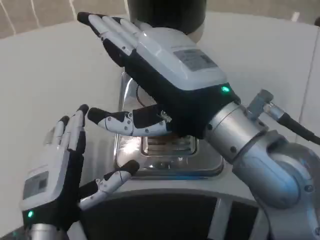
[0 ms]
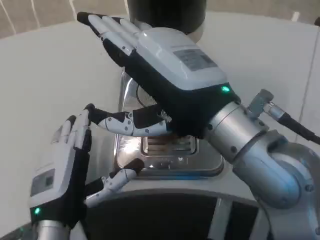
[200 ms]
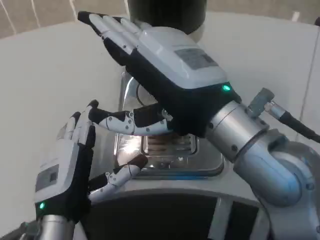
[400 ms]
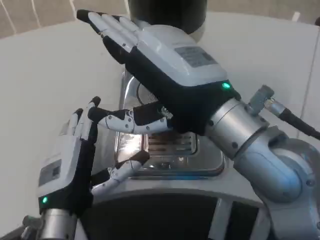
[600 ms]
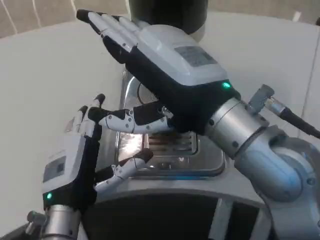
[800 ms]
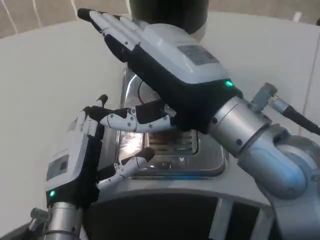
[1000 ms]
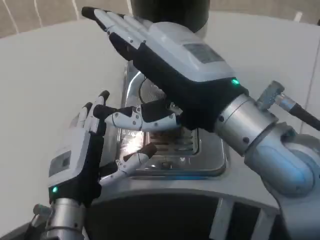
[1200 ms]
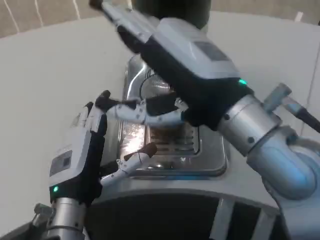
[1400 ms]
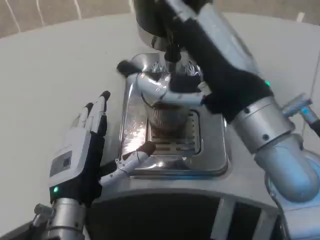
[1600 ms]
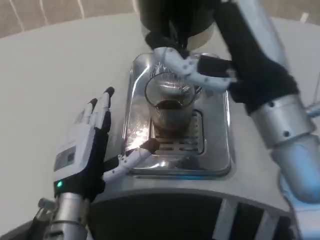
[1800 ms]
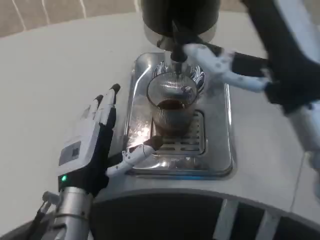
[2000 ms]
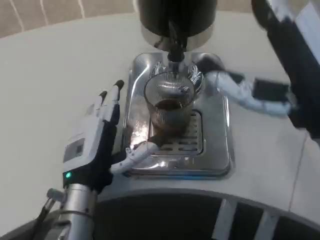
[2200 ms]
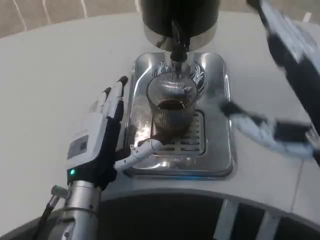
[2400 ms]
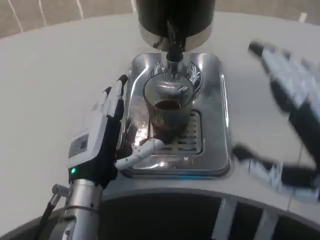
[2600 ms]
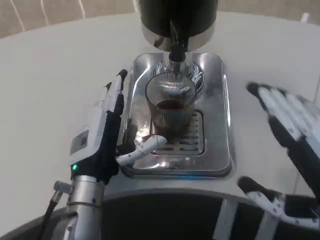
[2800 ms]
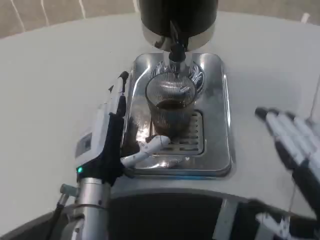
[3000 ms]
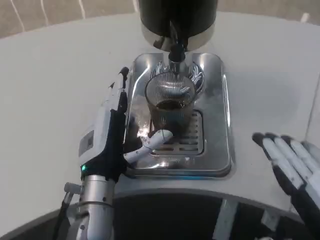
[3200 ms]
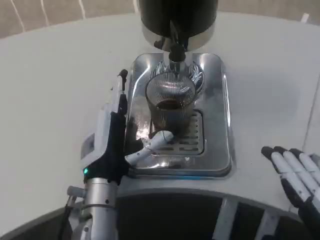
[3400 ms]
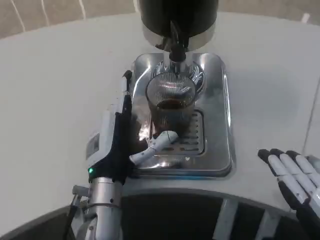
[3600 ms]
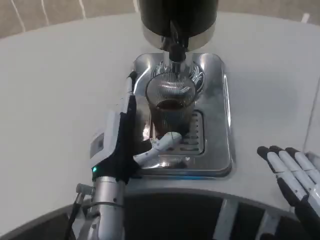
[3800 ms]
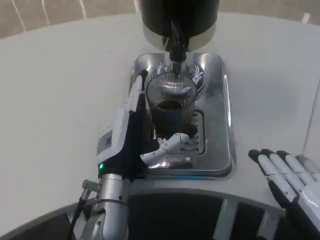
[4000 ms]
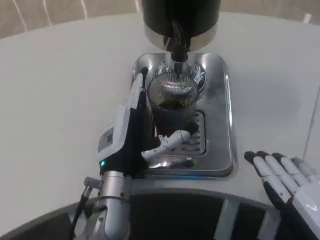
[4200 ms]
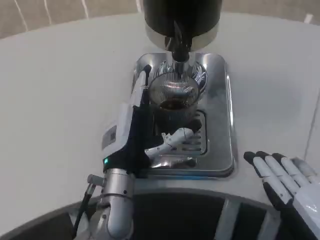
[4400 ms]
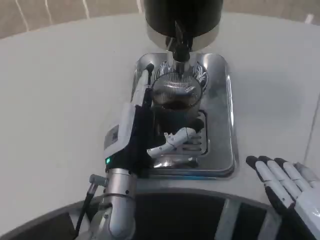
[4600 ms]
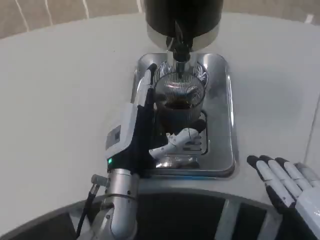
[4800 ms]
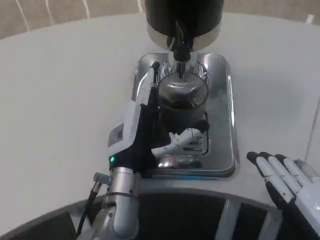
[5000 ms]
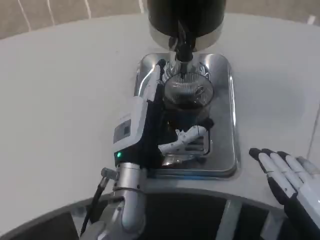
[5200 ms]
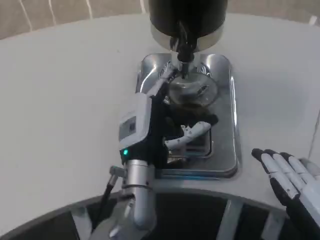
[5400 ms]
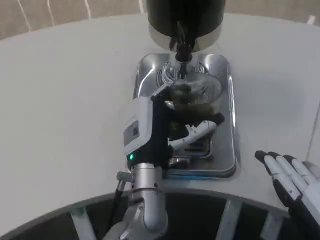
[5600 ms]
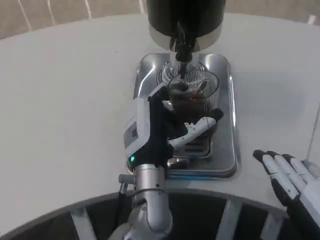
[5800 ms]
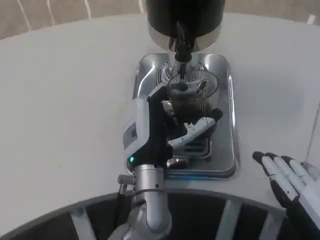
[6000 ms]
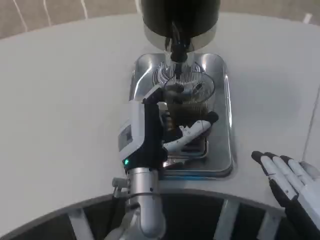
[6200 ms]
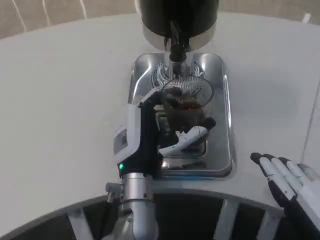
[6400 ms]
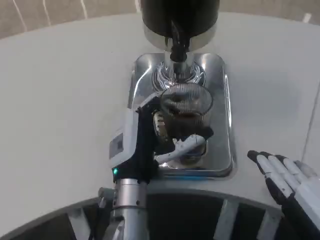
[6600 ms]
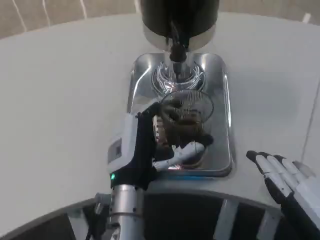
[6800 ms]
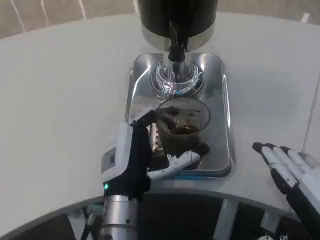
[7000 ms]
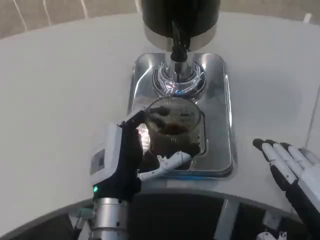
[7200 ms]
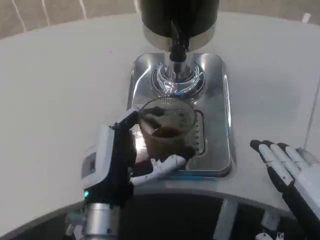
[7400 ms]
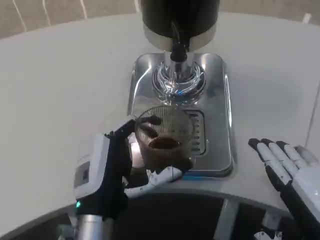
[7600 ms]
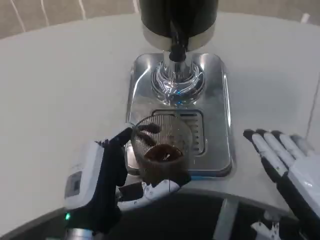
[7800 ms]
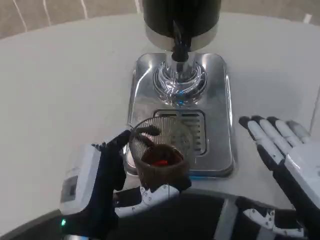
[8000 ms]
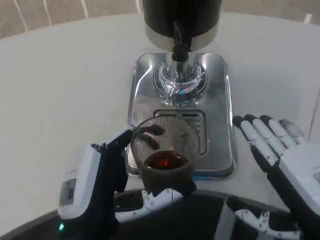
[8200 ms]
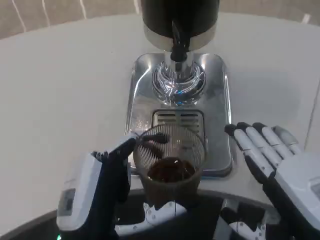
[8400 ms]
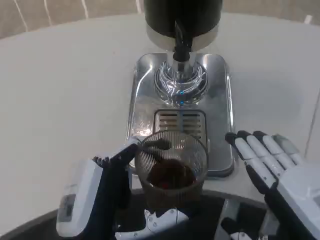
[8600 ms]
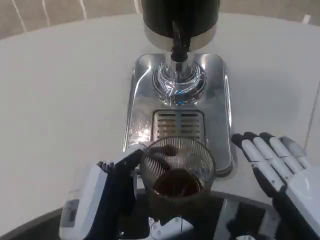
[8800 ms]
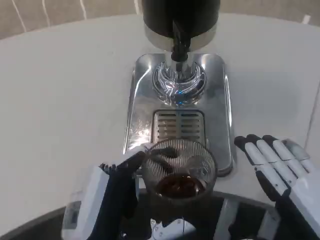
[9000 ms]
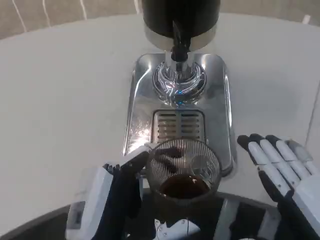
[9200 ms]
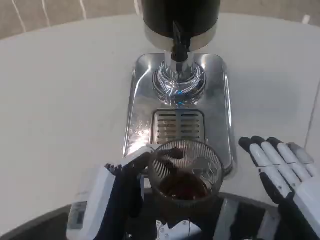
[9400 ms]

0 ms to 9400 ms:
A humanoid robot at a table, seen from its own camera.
Task of the whole recording: Grasp the cup under the faucet to collect the drink, then remove the cup.
1600 ms to 3200 ms: The left hand shifts by about 5 cm. Meanwhile the right hand moves backward, to the right and downward, some 20 cm.
4800 ms to 6200 ms: The hands move only a little.
6200 ms to 7800 ms: The left hand is displaced backward and to the left by some 15 cm.
7800 ms to 9400 ms: The left hand heads backward, covering roughly 5 cm.

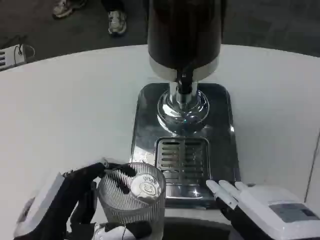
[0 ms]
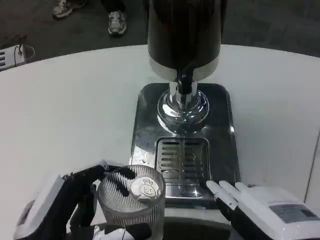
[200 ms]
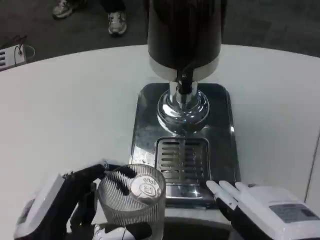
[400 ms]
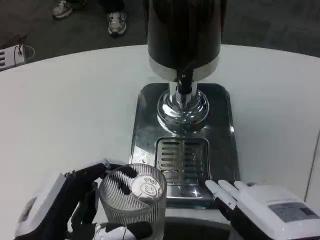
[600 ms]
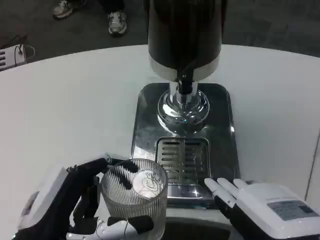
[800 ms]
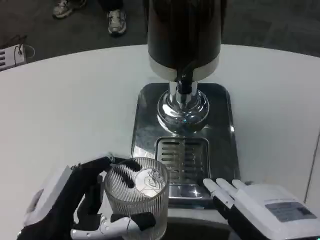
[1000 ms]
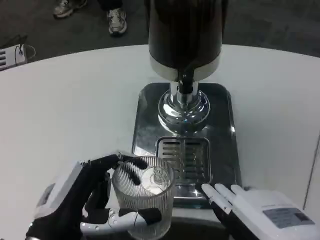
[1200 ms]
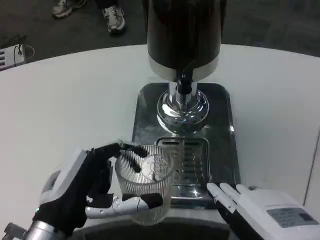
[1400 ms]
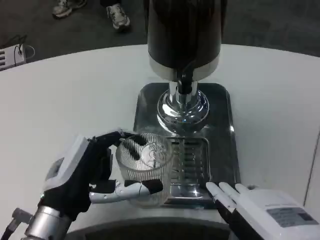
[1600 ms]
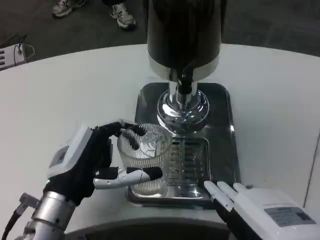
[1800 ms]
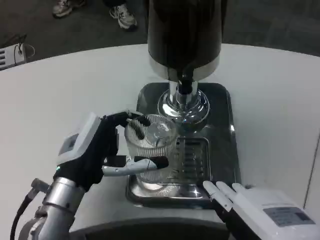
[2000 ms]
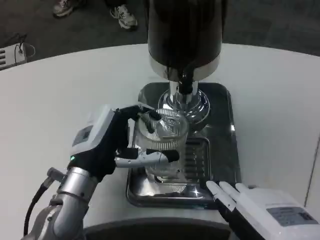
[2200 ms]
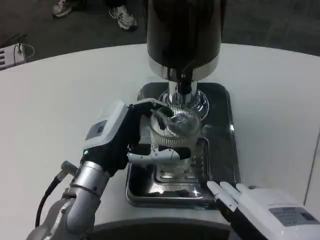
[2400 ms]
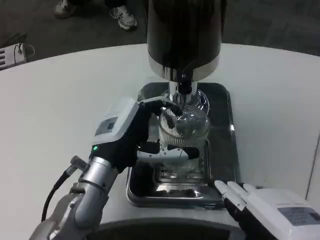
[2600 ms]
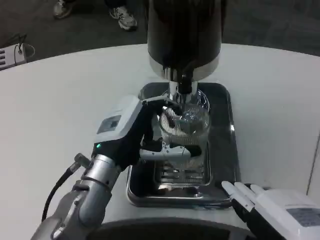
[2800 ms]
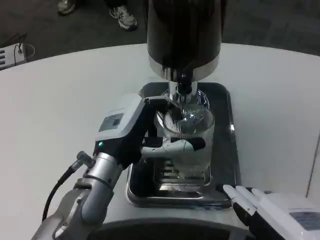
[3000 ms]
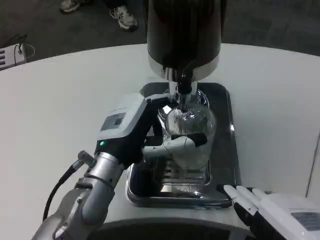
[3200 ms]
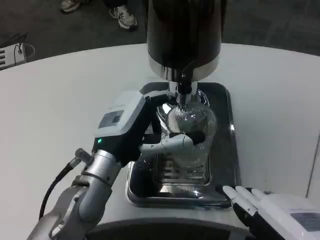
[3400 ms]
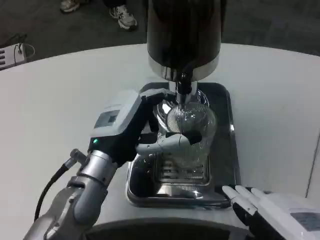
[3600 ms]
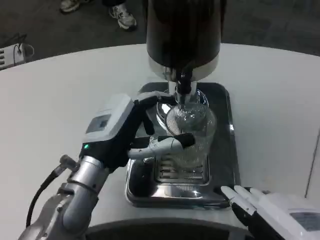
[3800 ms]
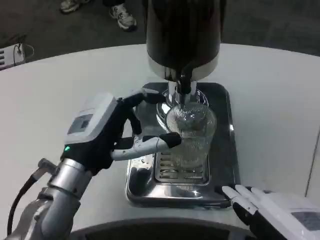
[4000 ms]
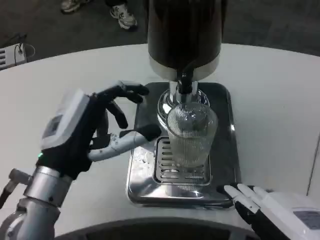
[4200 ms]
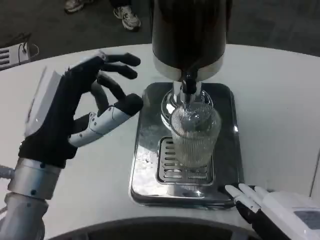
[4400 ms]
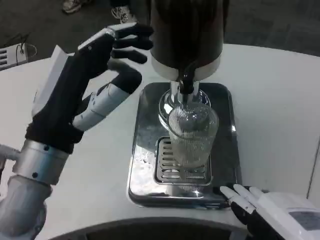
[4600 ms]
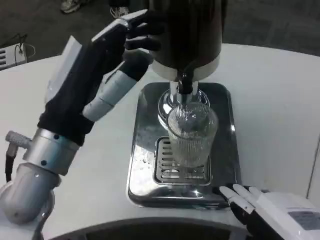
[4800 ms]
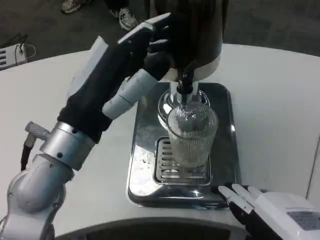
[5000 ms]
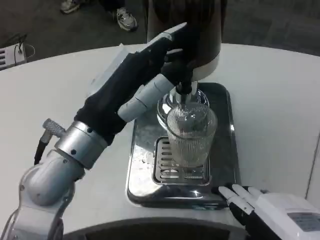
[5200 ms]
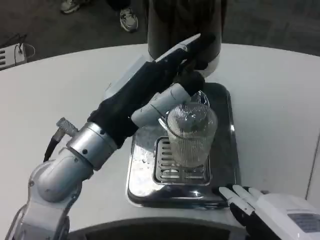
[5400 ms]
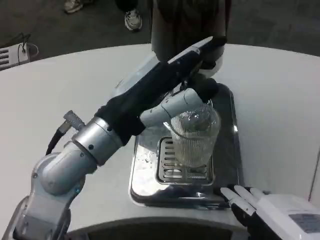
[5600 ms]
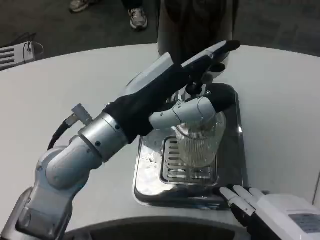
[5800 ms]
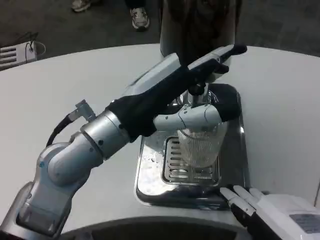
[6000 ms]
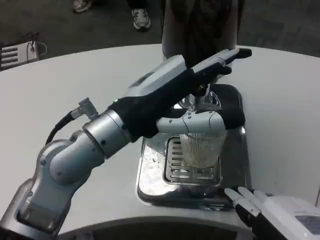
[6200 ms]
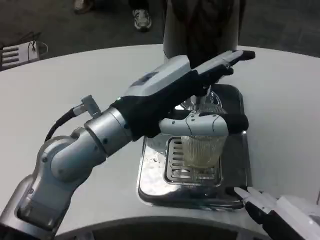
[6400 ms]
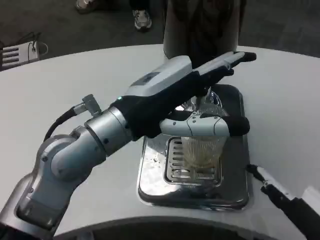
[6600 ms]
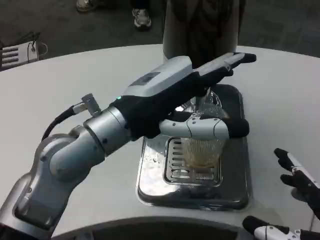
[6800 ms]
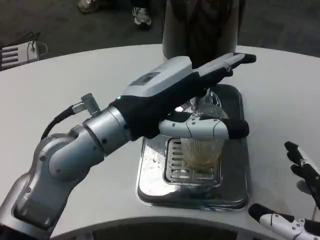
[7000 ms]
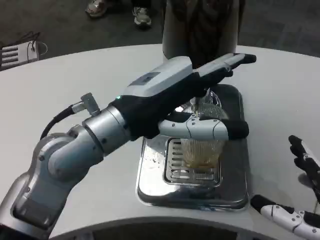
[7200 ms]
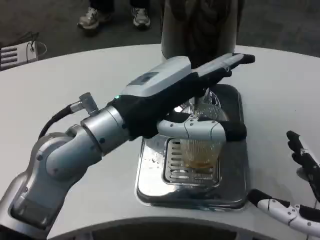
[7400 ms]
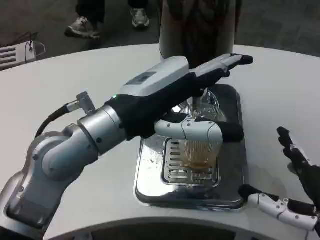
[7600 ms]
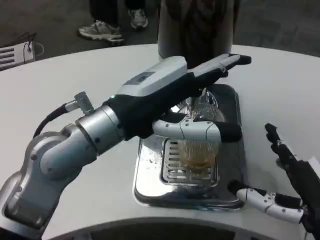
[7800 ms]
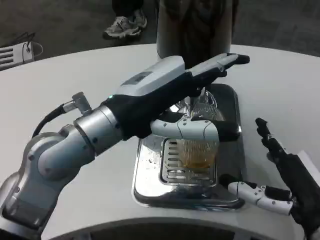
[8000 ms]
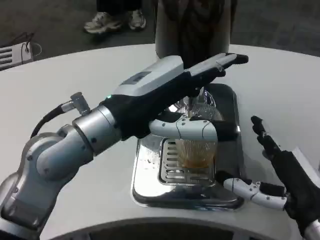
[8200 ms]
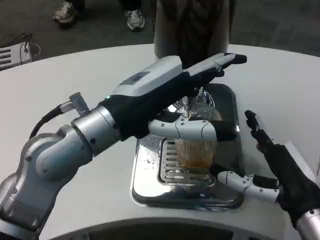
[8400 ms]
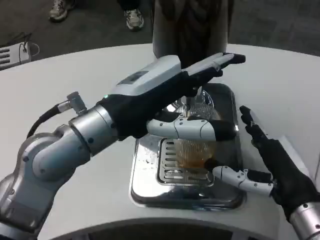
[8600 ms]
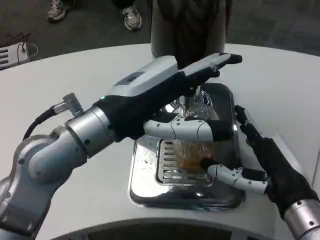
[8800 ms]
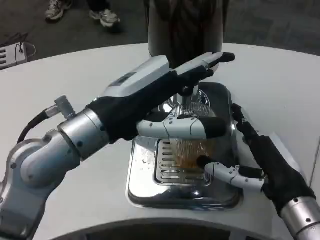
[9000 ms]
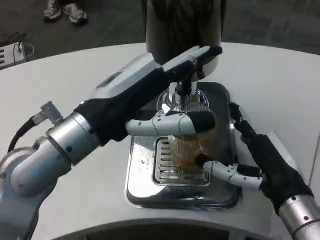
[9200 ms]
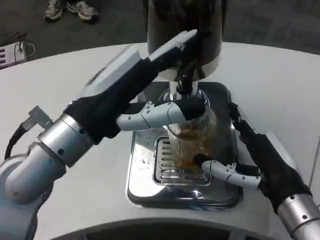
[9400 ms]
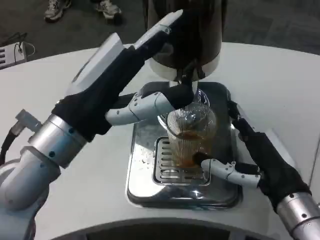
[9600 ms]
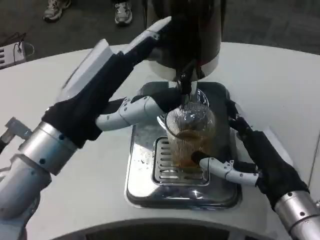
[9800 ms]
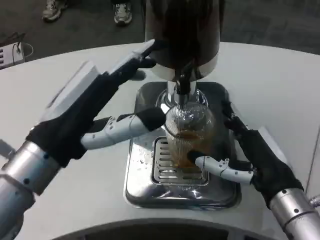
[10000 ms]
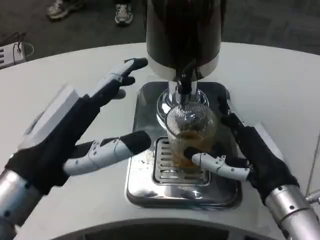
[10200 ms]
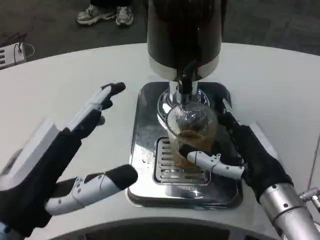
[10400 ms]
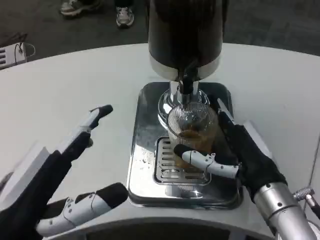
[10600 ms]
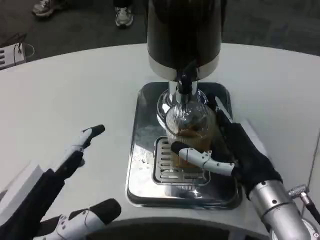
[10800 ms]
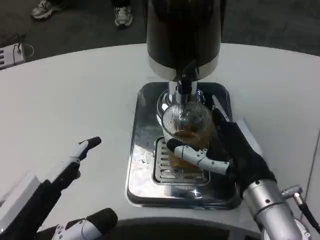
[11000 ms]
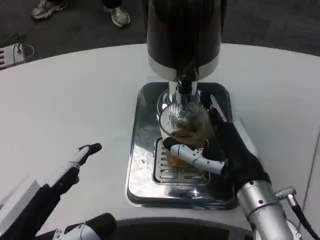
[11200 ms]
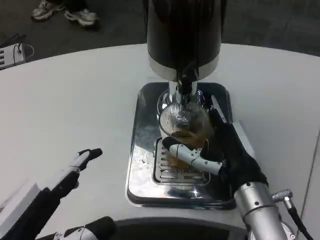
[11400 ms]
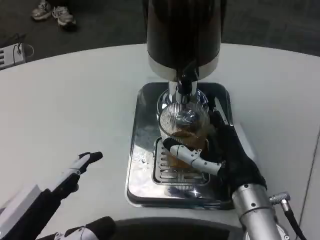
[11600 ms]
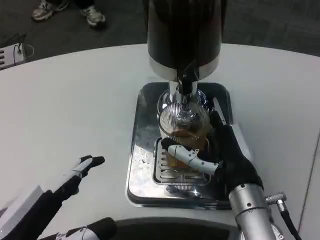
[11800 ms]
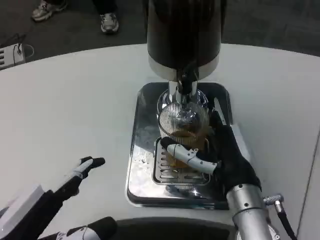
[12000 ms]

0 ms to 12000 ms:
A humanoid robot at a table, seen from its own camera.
Task of the whole recording: Grasp the cup under the faucet to collect the drink, then remove the cup.
0 ms to 1600 ms: The left hand heads forward, covering some 10 cm.
1600 ms to 3000 ms: The left hand heads forward and to the right, covering some 10 cm.
3000 ms to 4400 ms: The left hand shifts approximately 10 cm backward and to the left.
4400 ms to 6000 ms: The left hand travels upward and to the right by some 10 cm.
6000 ms to 7600 ms: The right hand travels forward and downward by about 10 cm.
7600 ms to 9000 ms: The right hand is displaced forward by about 5 cm.
9000 ms to 10400 ms: The left hand moves backward, downward and to the left, roughly 15 cm.
10400 ms to 12000 ms: The right hand is displaced to the left by some 5 cm.

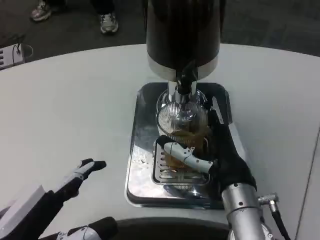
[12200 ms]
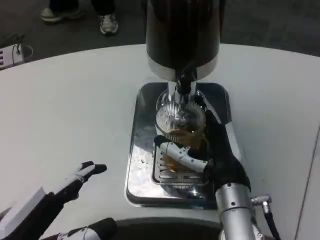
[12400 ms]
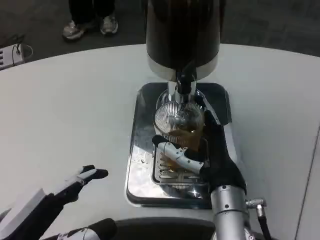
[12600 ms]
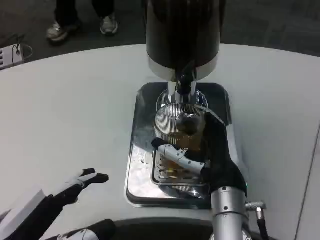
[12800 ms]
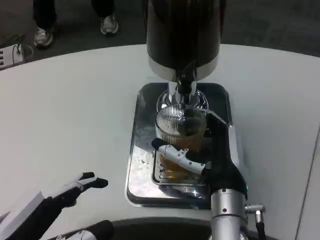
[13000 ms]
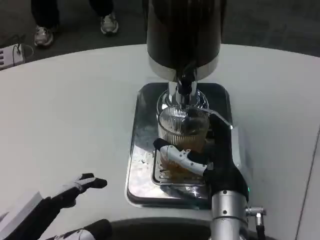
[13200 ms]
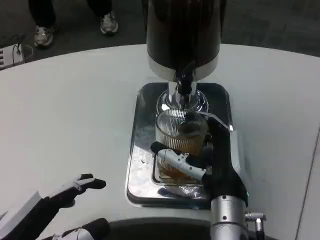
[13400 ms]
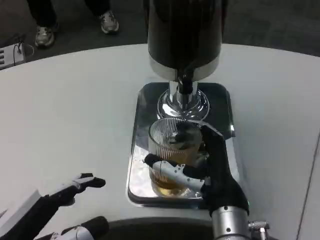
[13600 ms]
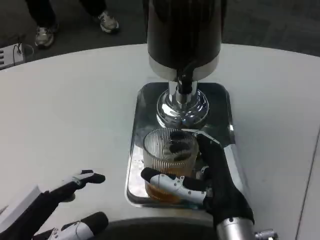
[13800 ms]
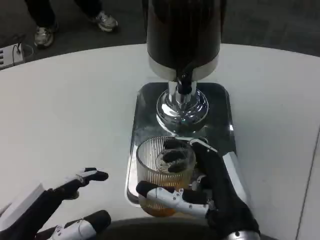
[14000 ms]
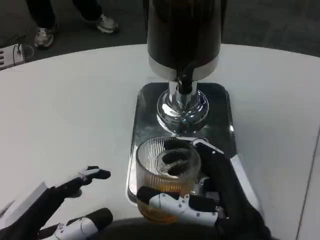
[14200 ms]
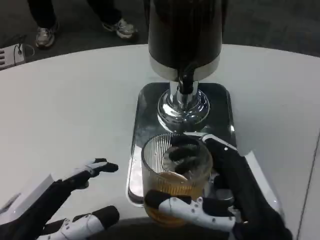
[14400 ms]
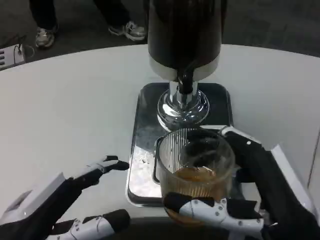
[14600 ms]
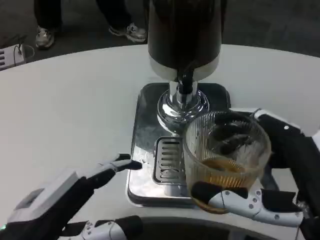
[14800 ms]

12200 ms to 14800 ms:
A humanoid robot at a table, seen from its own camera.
Task of the whole recording: Grasp the cup under the faucet to collect the drink, then remove the cup.
12200 ms to 13400 ms: There are only small adjustments of the hands.
13400 ms to 14800 ms: The right hand is displaced backward, to the right and upward by approximately 20 cm.
